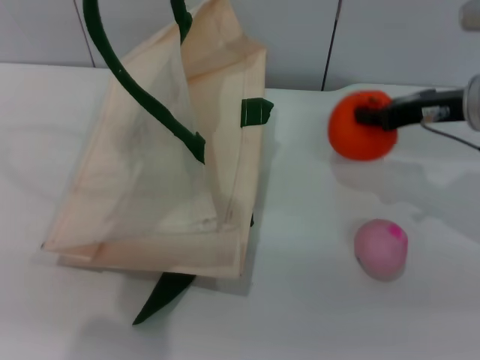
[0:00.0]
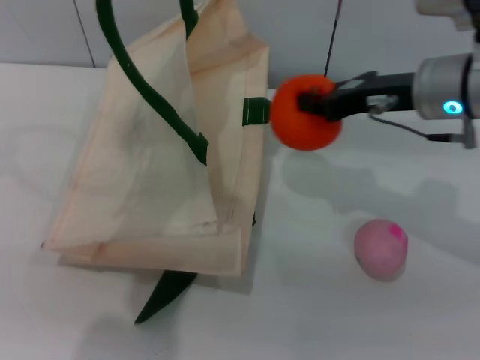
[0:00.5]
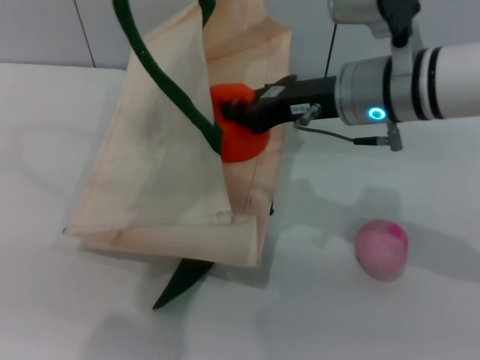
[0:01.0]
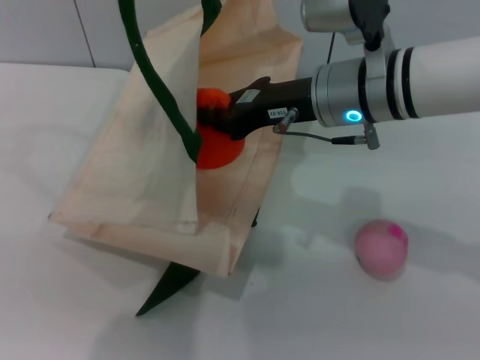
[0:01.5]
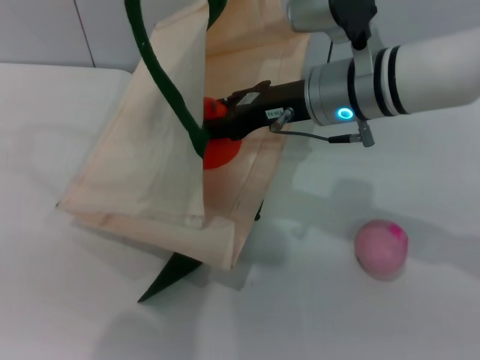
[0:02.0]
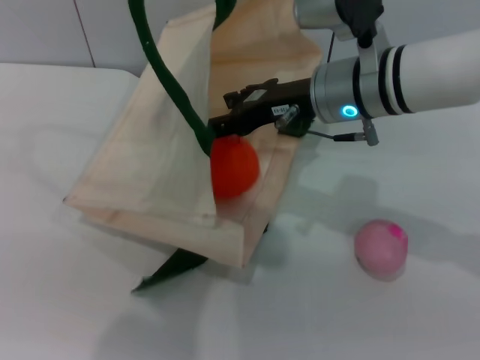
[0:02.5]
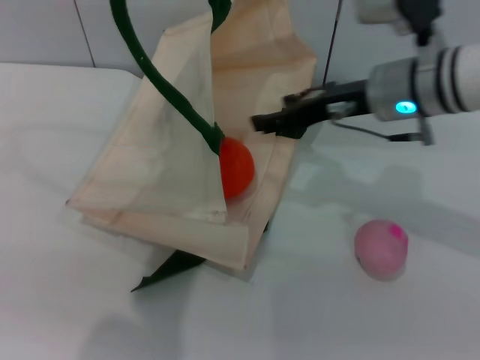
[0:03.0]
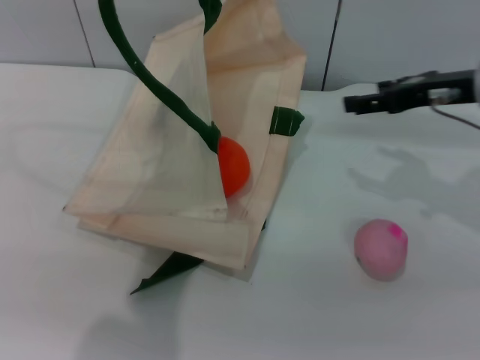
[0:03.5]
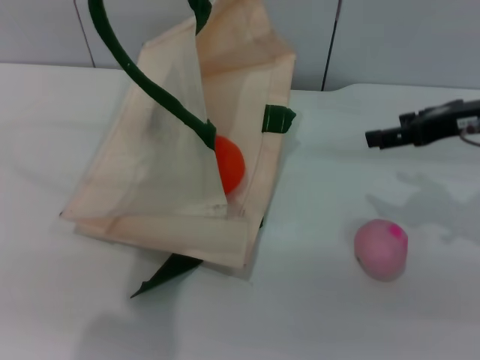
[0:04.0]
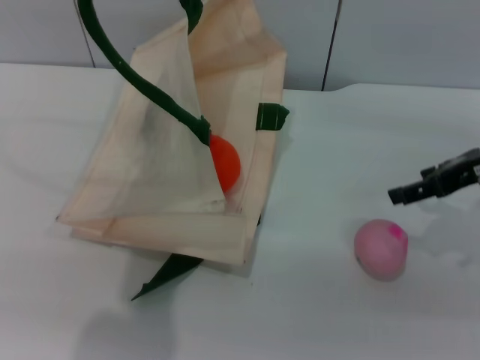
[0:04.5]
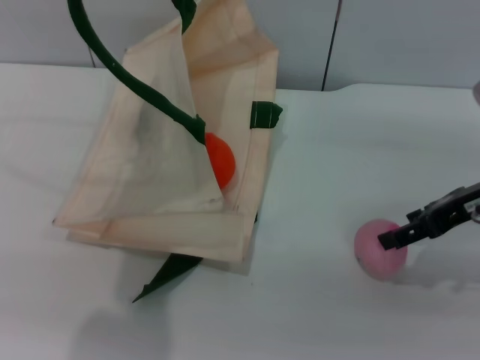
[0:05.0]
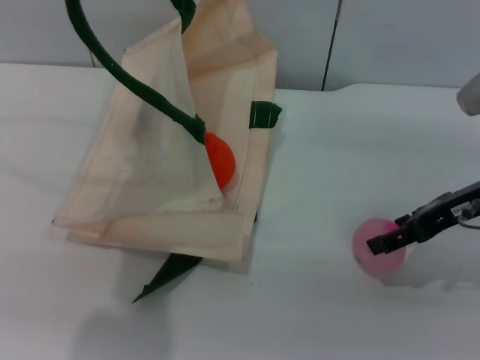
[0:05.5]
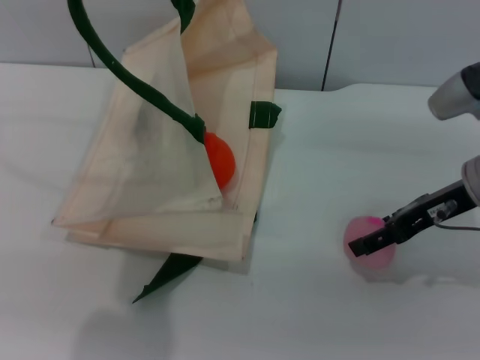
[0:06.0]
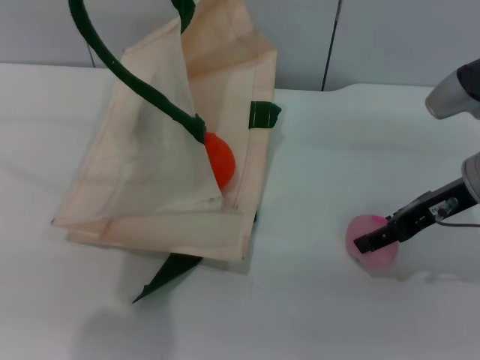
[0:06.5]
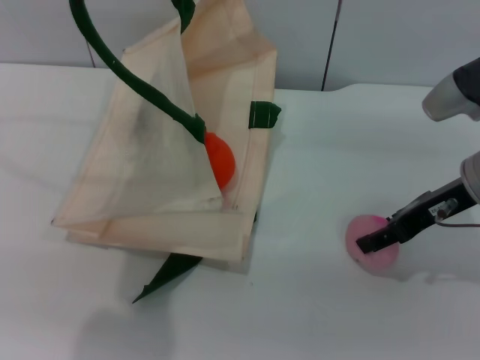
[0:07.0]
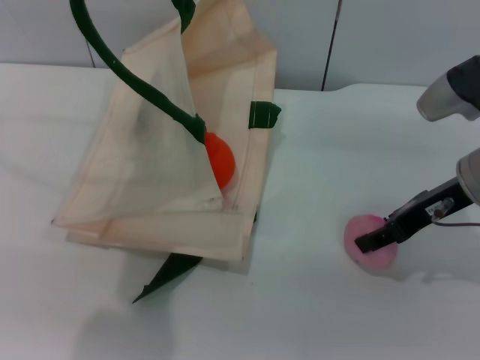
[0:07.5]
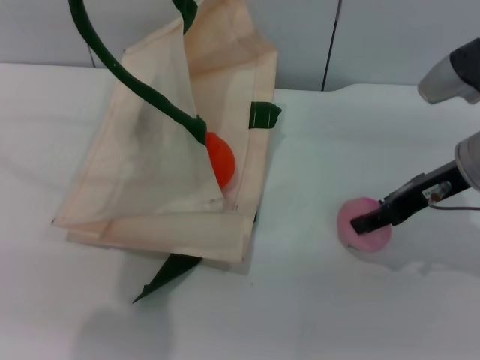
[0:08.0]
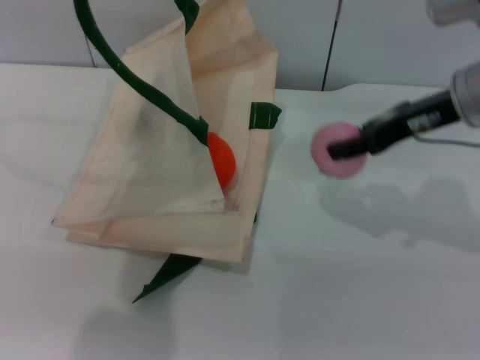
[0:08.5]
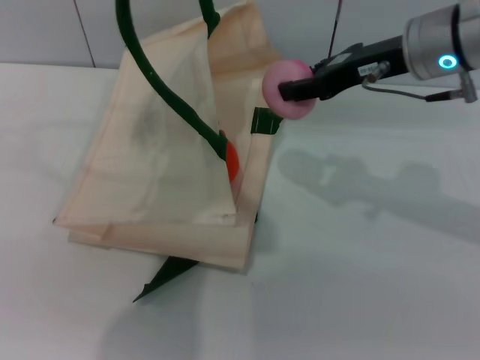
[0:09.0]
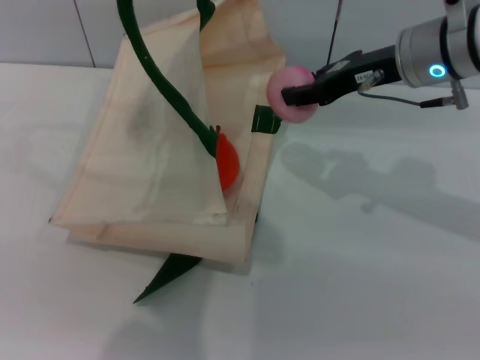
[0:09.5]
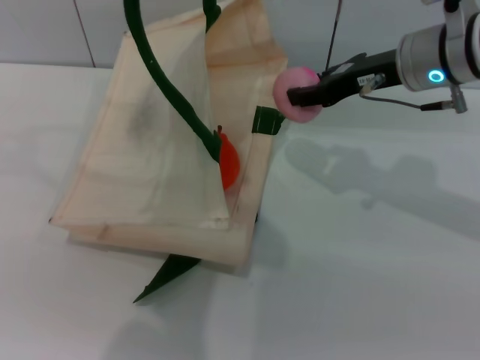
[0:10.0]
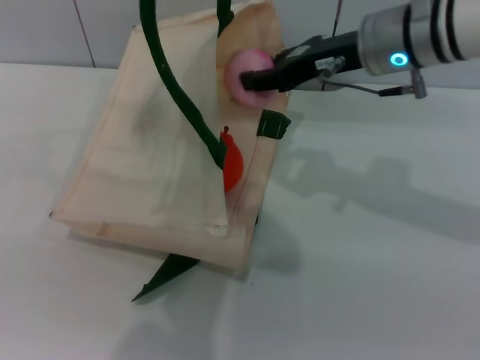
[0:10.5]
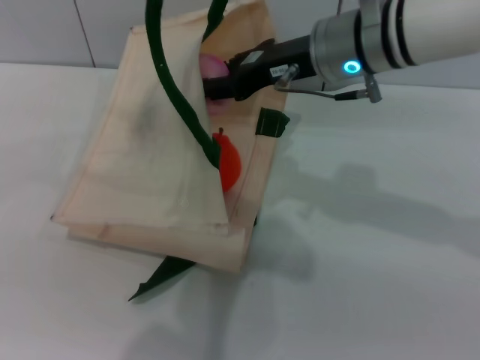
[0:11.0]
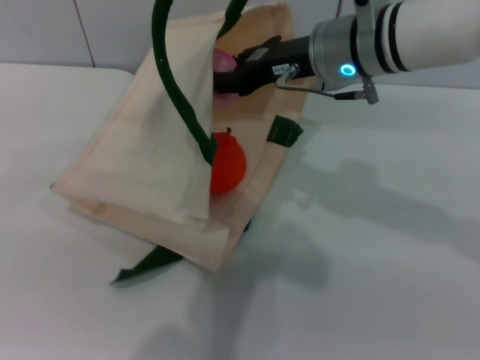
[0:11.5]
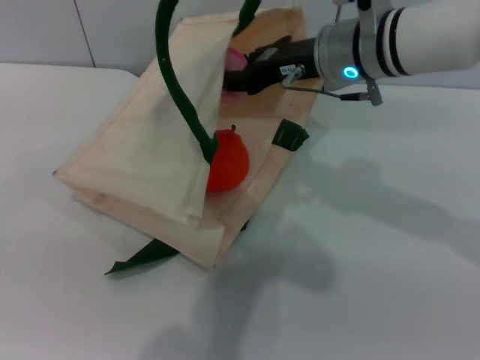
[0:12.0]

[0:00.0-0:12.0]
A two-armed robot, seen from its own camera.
Task of the whole recording: pick up the orange and peach from the table and place it in the white handbag.
Step, 0:00.5 to 0:03.0: Place the orange into the woven bag with the right gripper.
Step, 0:03.5 to 0:08.0: Pick up the peach with the right gripper.
0:00.0 to 0:02.0: The right gripper is displaced to the left by approximately 15 cm.
0:02.0 to 0:04.0: The right gripper shifts about 15 cm to the right, and opens up.
0:04.0 to 0:06.0: The right gripper changes place by about 5 cm.
0:06.0 to 0:08.0: The right gripper closes up.
0:08.0 to 0:10.0: The left gripper ends up roughly 5 cm from where it was, while the right gripper moves forward and to the left, some 10 cm.
0:10.0 to 0:12.0: The right gripper moves to the left, roughly 5 cm.

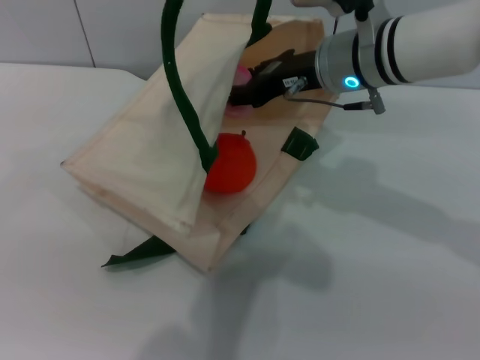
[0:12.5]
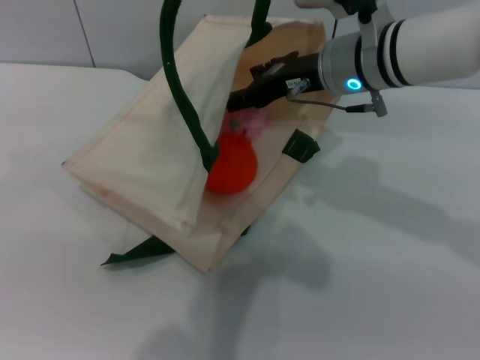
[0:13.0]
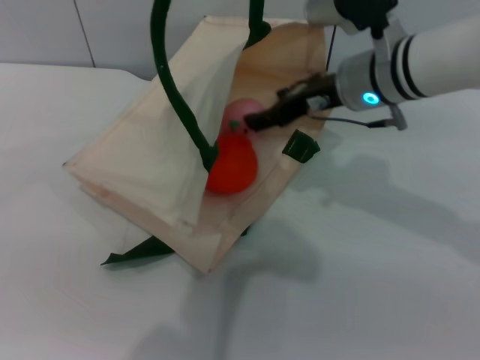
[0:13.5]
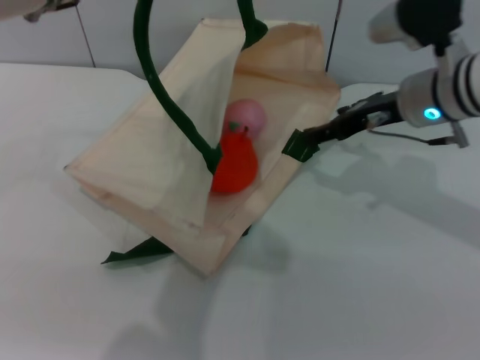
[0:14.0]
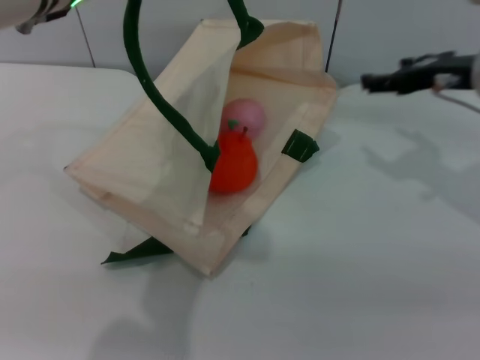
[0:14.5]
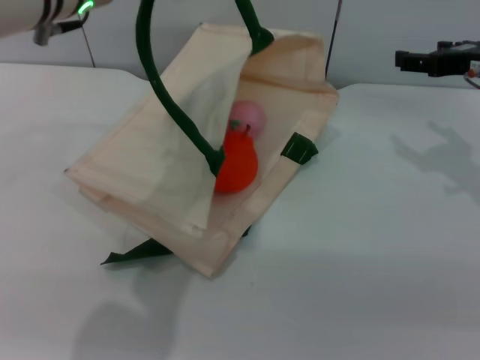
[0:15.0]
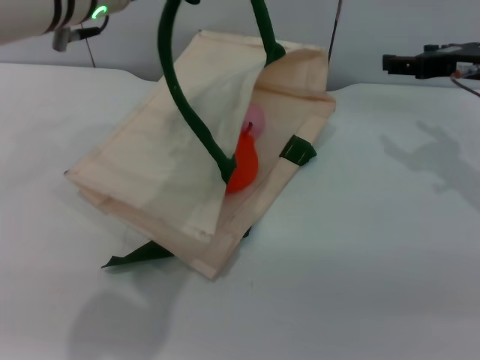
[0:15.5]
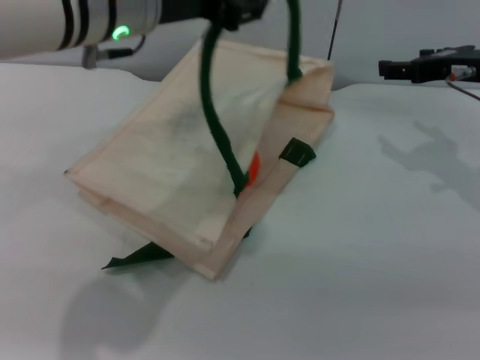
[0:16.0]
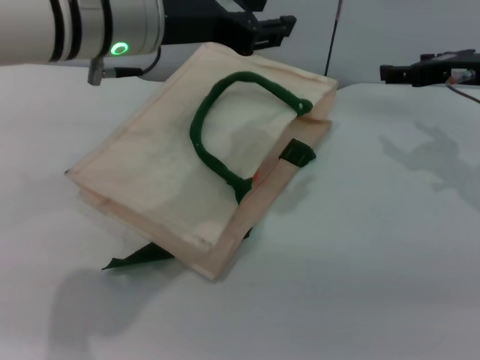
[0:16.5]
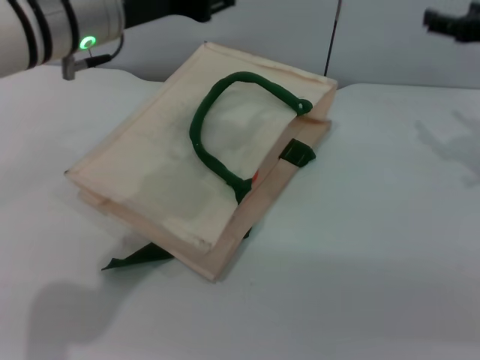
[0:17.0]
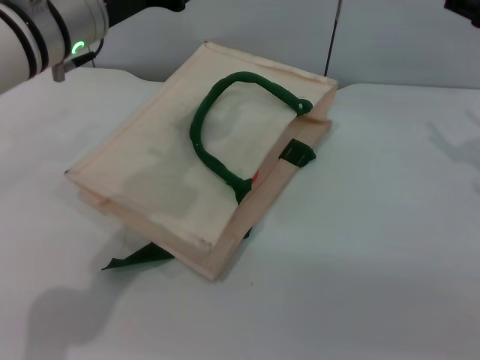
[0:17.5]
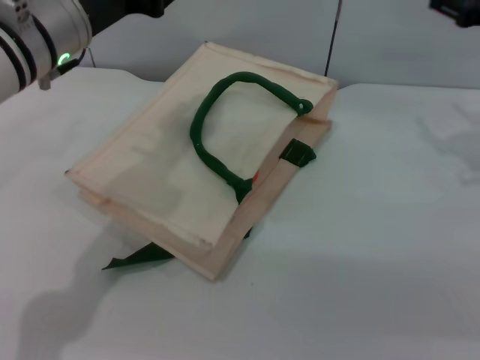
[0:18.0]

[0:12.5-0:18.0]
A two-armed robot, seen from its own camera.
Task of the whole recording: pick up the orange and peach from the table and place it in the white handbag.
Step, 0:14.0 to 0:17.0: Lower the woven bag with the left gripper to close it.
0:12.5 to 0:14.5: The left gripper moves to the left, roughly 5 cm, while the right gripper goes roughly 15 cm to the right, and opens its fingers.
0:14.5 to 0:16.0: The left gripper opens up.
0:16.0 to 0:18.0: The left gripper travels to the left and downward by roughly 10 cm.
